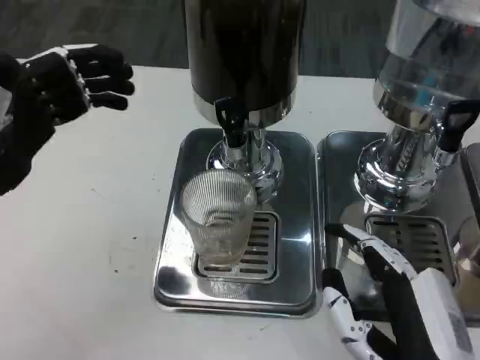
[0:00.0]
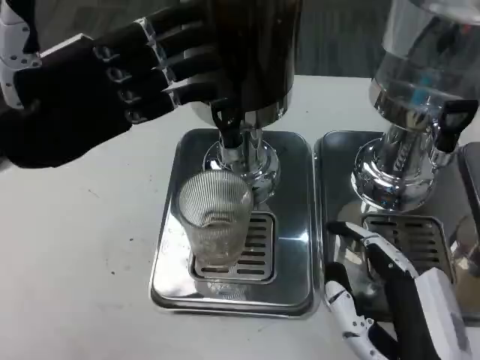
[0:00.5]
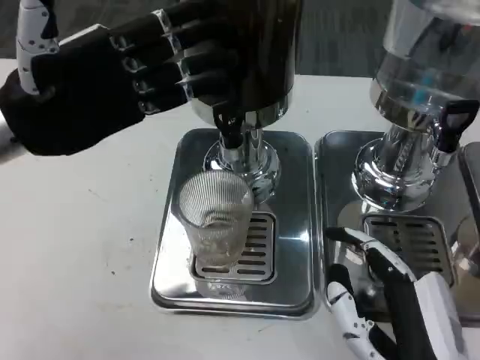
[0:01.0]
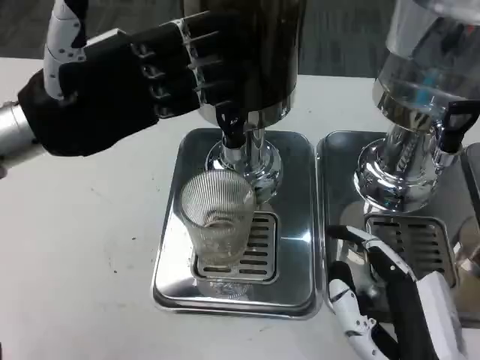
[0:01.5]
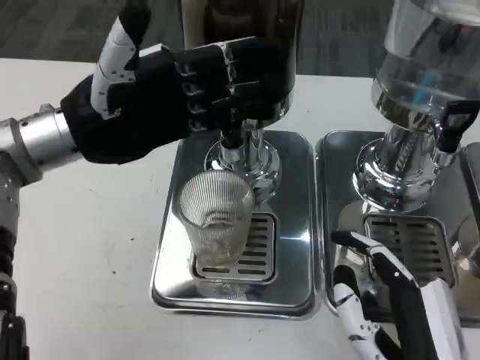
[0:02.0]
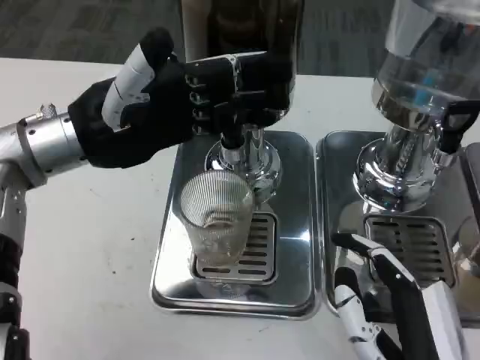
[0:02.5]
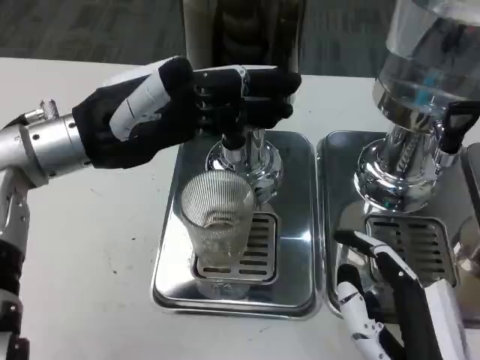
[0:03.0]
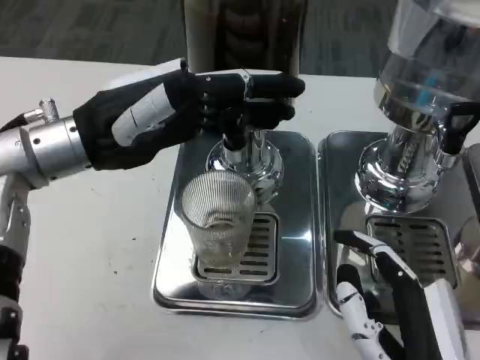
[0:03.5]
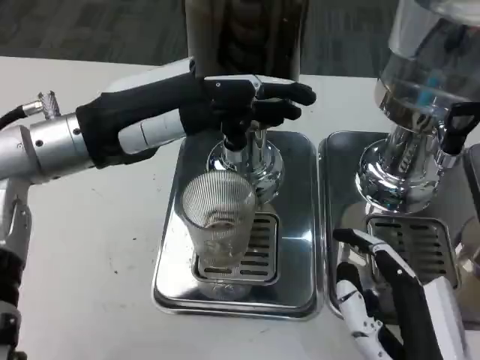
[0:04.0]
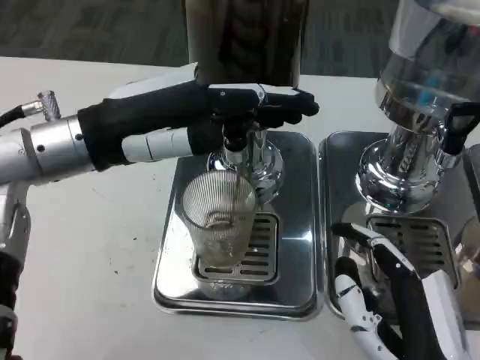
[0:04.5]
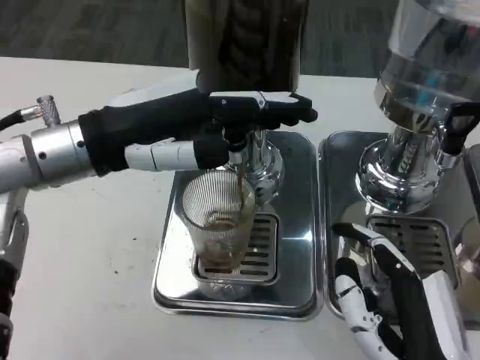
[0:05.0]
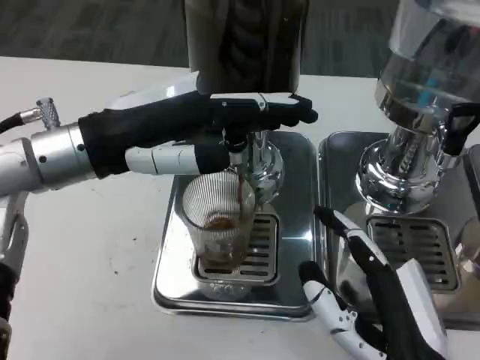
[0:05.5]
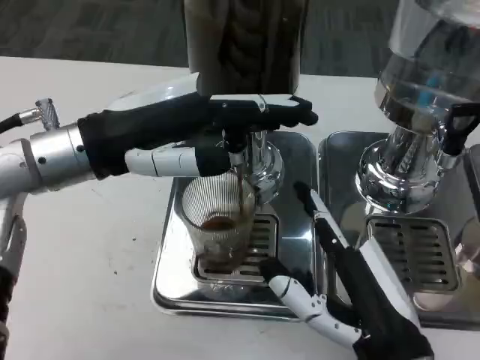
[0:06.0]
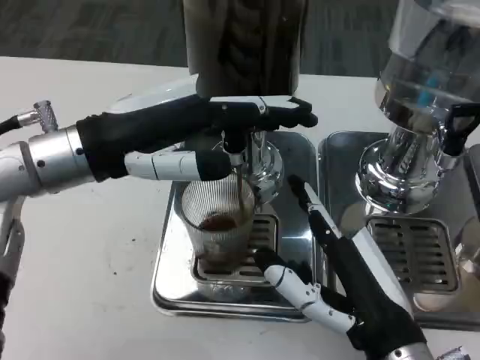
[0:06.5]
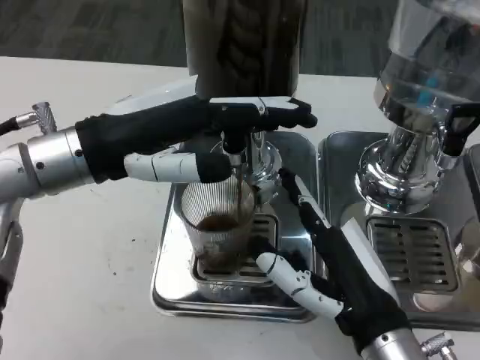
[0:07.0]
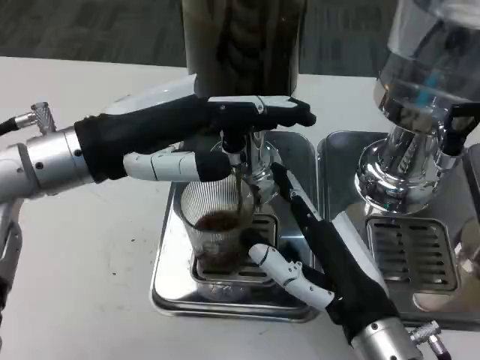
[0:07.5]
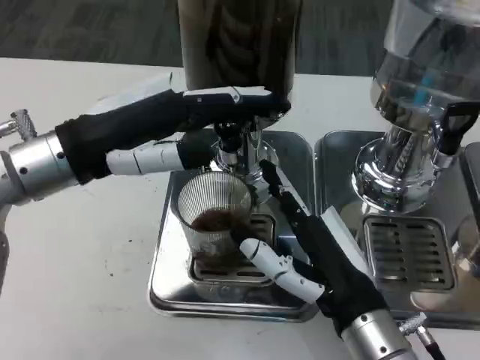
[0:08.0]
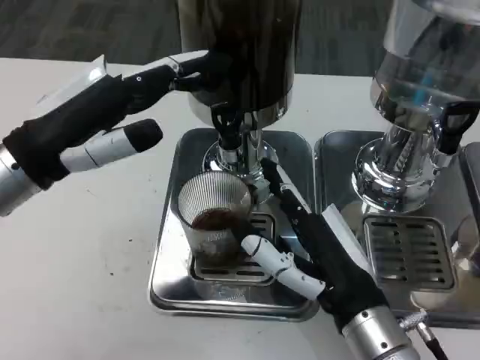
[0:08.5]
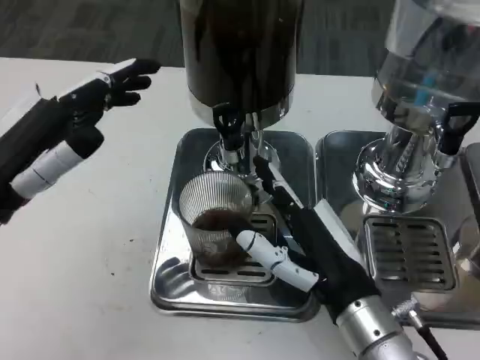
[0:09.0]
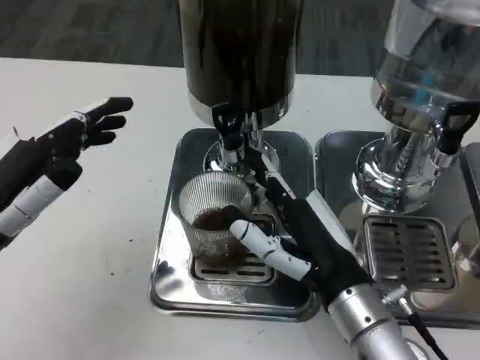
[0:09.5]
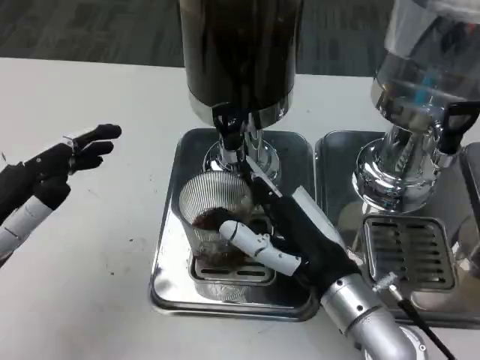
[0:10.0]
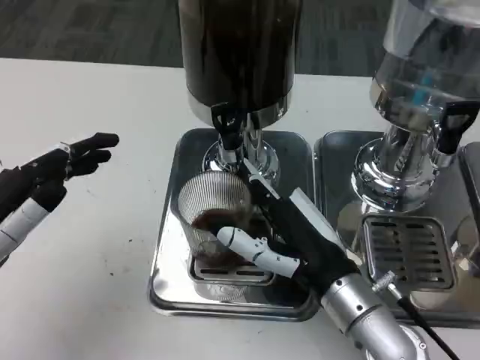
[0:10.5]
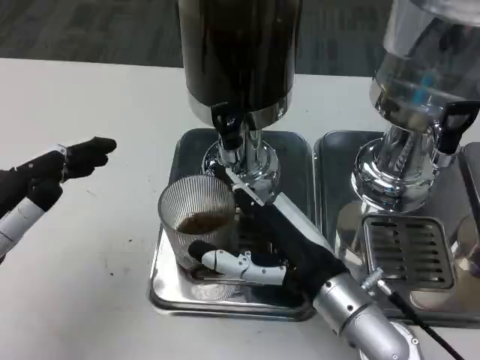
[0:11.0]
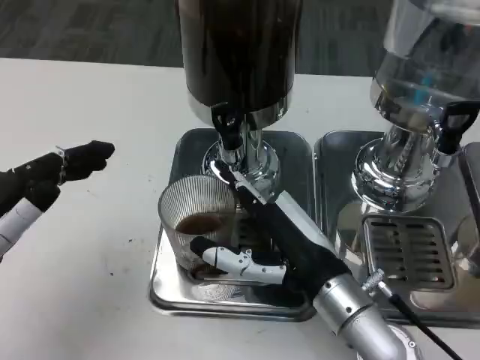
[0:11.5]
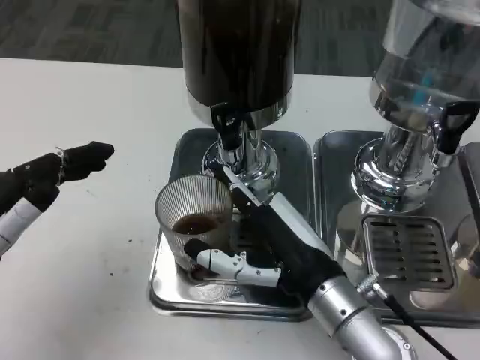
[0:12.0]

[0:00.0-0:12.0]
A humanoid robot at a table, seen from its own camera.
Task of the whole recording: Grasp the cup under the faucet to collect the drink, then remove the cup.
0:00.0 to 0:02.0: The left hand travels to the right and forward by approximately 10 cm.
0:06.0 to 0:08.0: The right hand ends up approximately 5 cm from where it was.
0:08.0 to 0:10.0: The left hand shifts roughly 15 cm backward, downward and to the left.
0:10.0 to 0:12.0: There are only small adjustments of the hands.

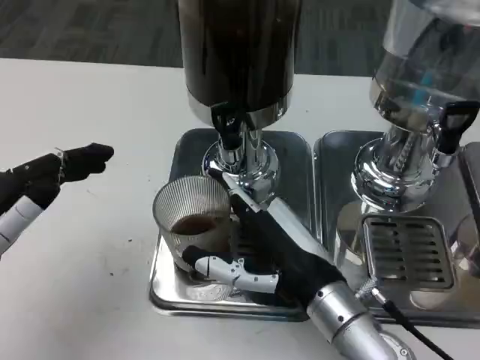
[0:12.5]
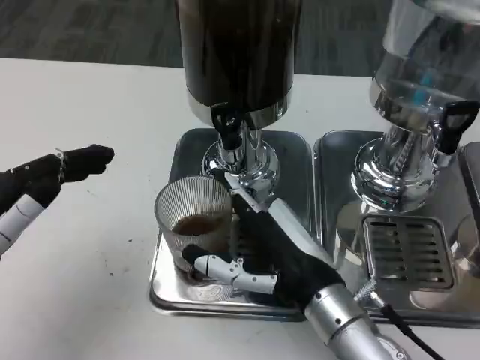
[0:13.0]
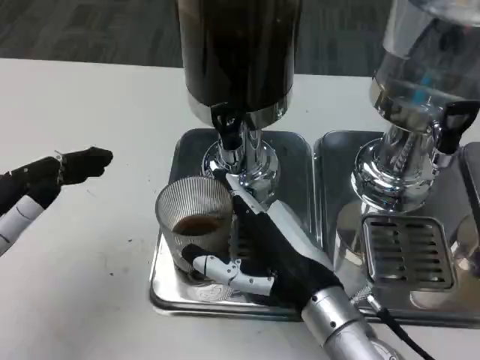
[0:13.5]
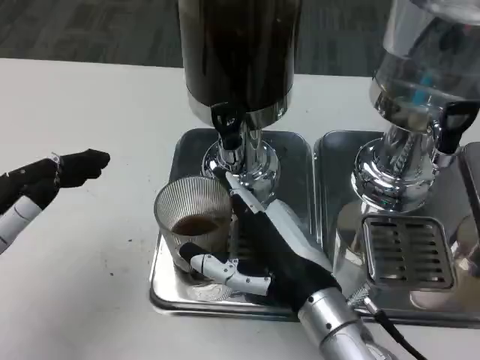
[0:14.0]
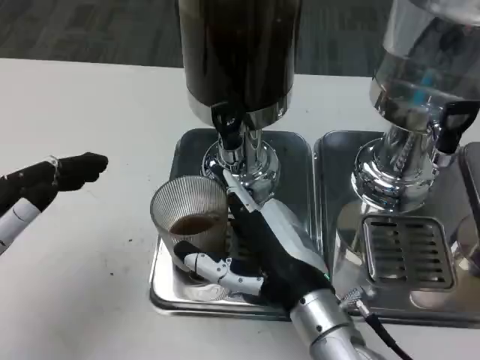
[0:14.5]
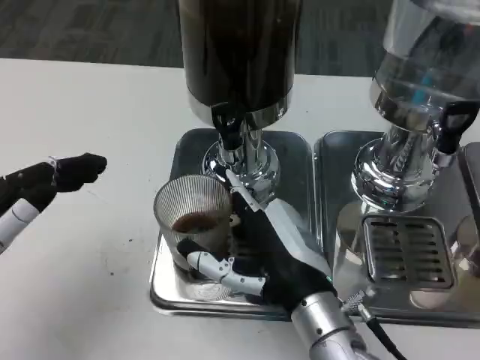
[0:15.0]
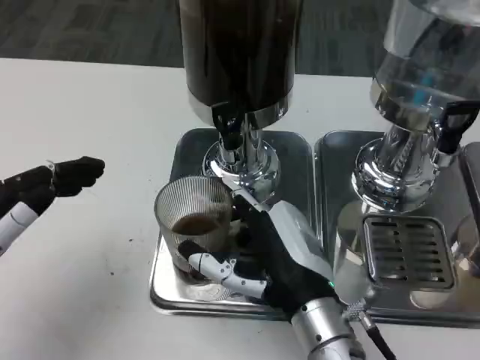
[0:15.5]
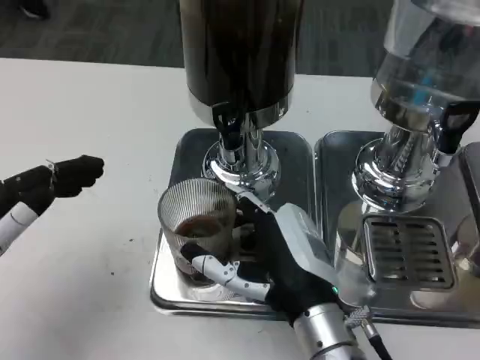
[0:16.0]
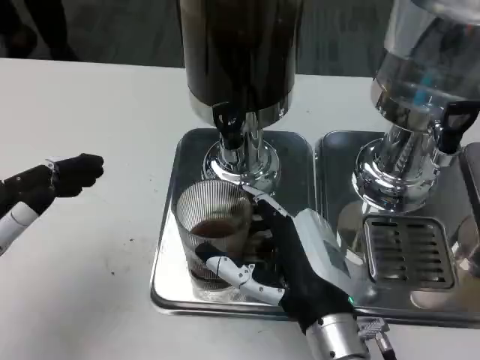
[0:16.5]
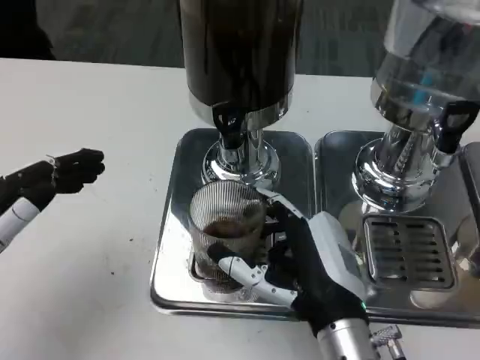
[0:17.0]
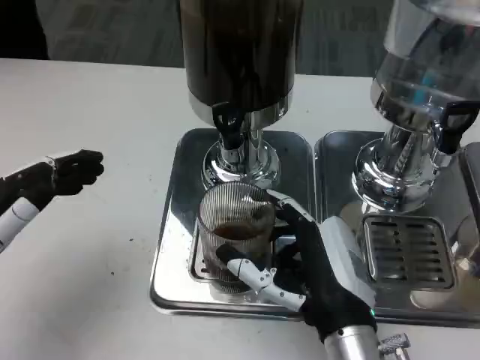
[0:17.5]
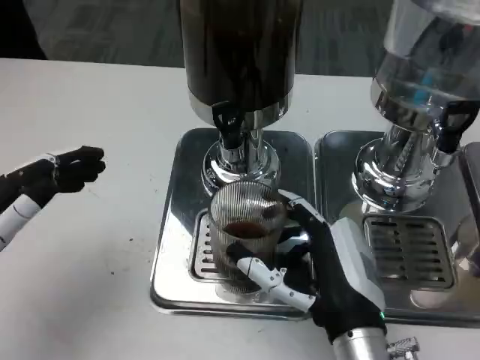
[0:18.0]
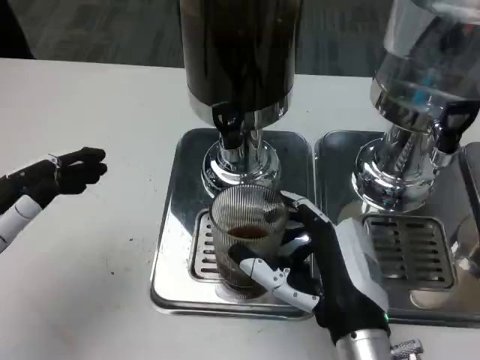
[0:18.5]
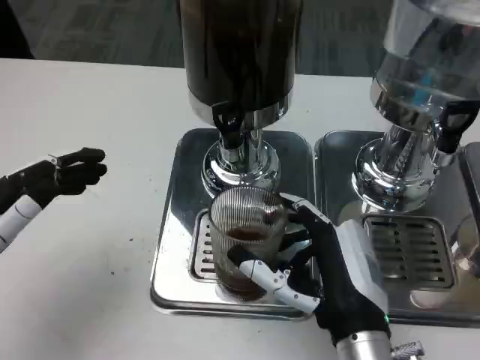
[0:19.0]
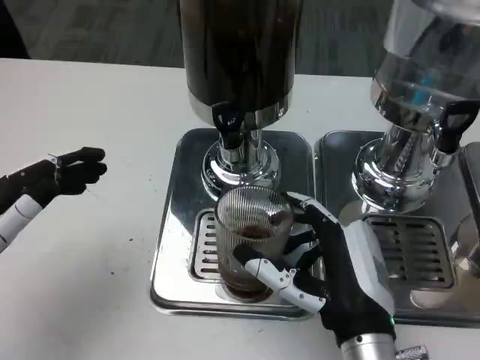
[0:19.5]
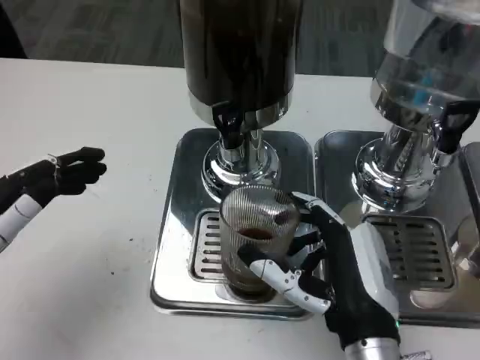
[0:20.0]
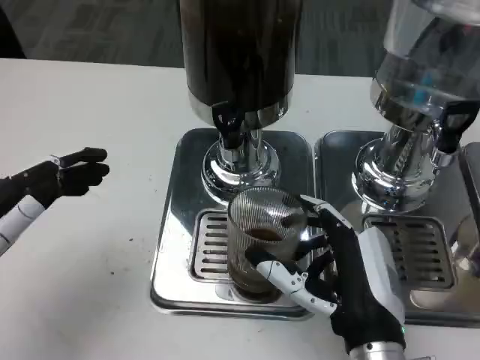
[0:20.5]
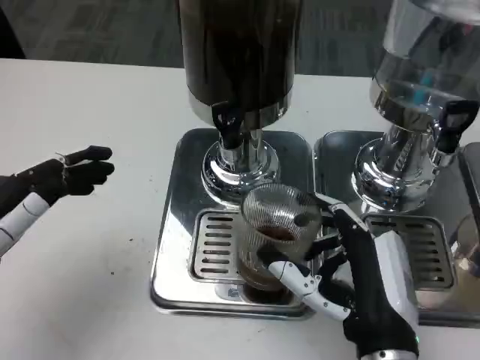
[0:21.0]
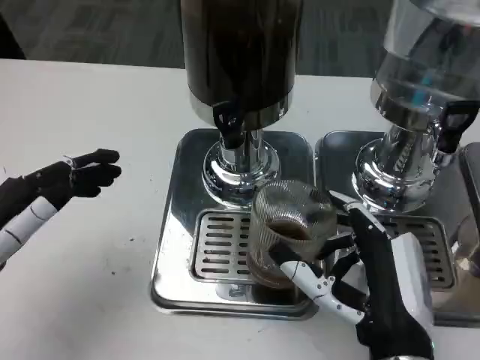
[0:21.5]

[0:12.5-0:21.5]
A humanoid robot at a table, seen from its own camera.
Task of the whole recording: Grasp the cup under the faucet to collect the drink, then remove the cup.
0:12.5 to 0:14.5: There are only small adjustments of the hands.
0:14.5 to 0:17.0: The hands make only small movements.
0:17.0 to 0:21.5: There are only small adjustments of the hands.

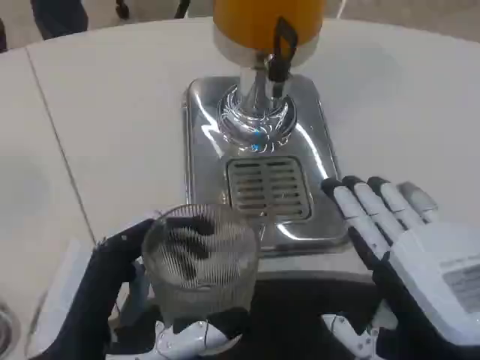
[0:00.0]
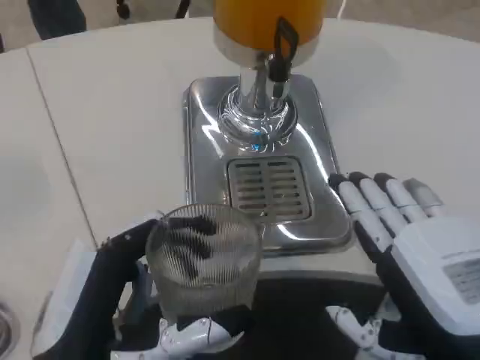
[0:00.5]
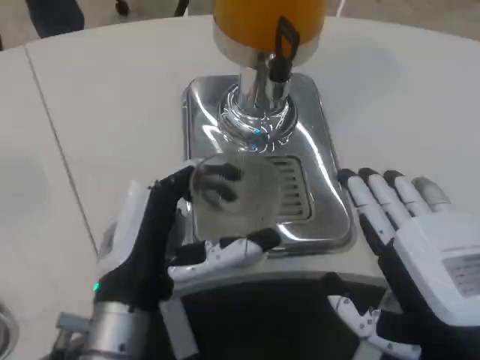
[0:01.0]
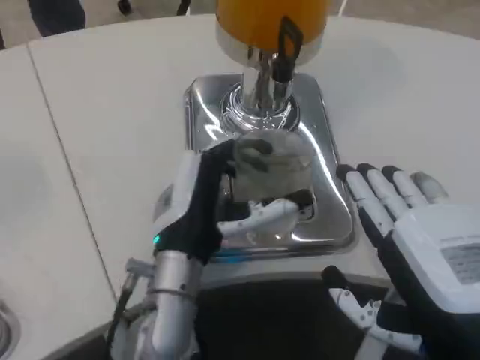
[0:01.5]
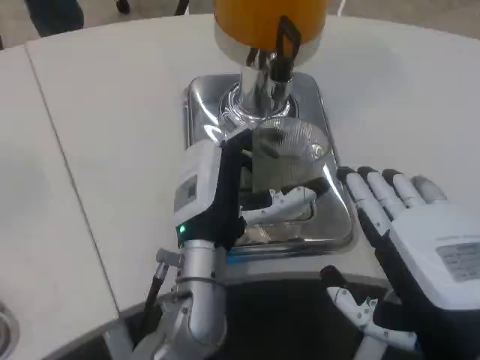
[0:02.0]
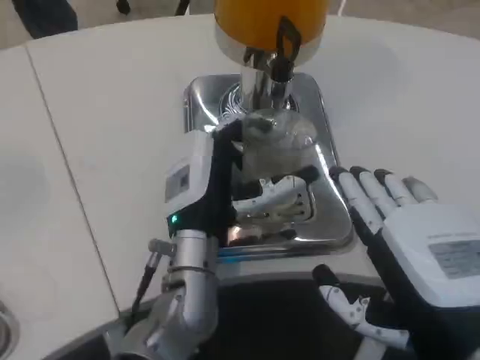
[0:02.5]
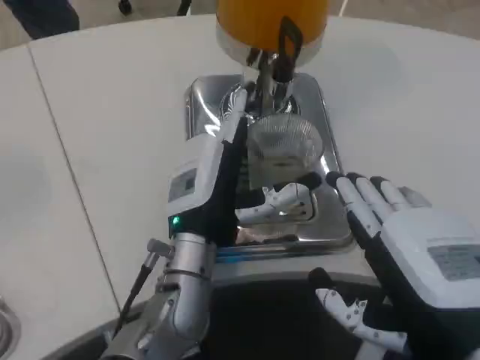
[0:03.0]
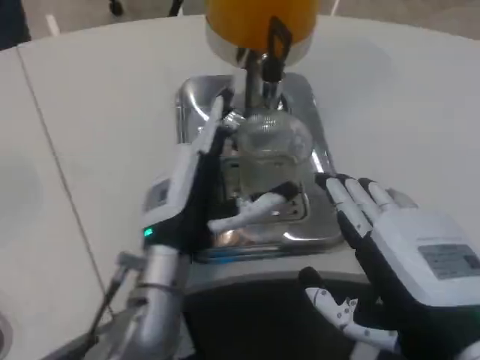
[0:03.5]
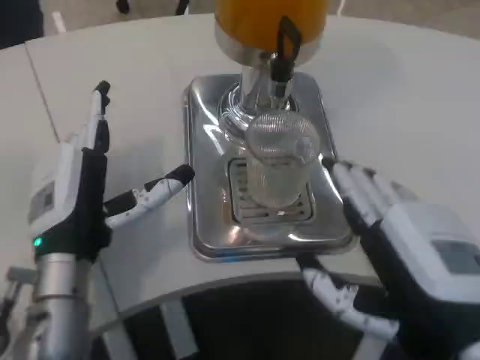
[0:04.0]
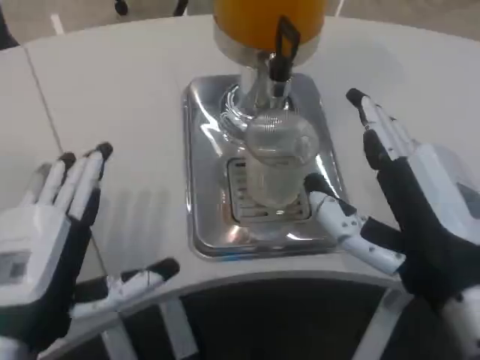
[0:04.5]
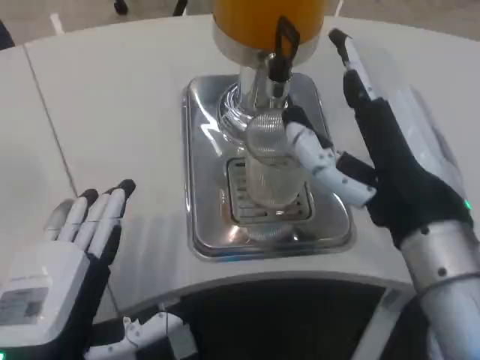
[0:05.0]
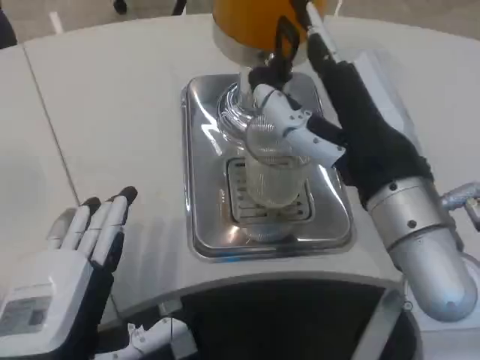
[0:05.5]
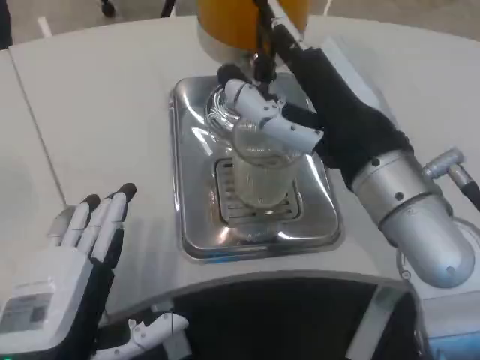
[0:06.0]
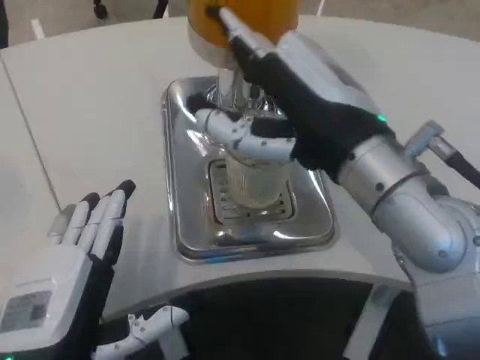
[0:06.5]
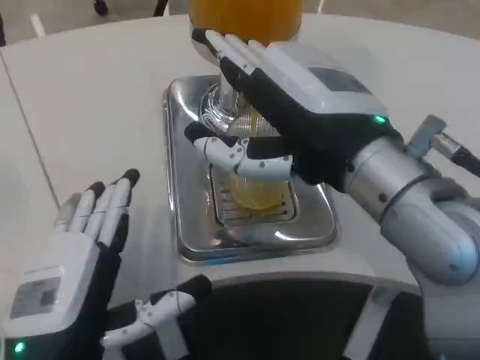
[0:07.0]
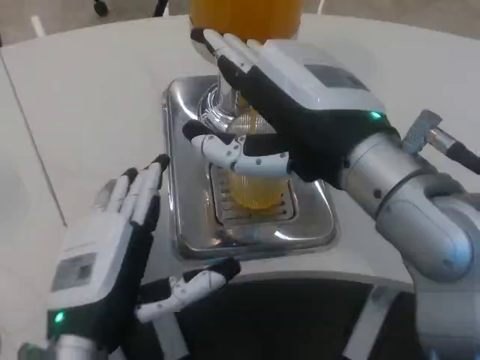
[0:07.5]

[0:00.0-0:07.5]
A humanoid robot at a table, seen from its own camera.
Task of the whole recording: Grasp the cup under the faucet to collect the drink, then remove the cup.
0:00.0 to 0:02.0: The left hand is displaced forward and to the right by roughly 20 cm.
0:02.0 to 0:04.0: The left hand travels to the left by approximately 10 cm.
0:04.0 to 0:05.5: The right hand is displaced forward and upward by about 10 cm, while the left hand goes about 15 cm backward.
0:05.5 to 0:07.5: The right hand travels upward by some 5 cm. The left hand moves about 5 cm.
